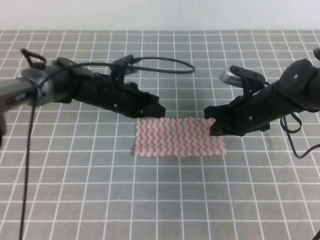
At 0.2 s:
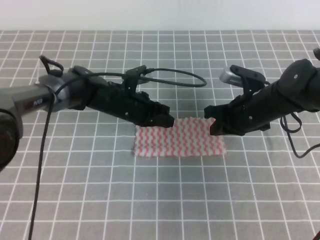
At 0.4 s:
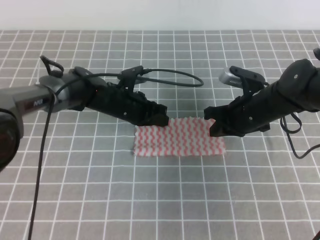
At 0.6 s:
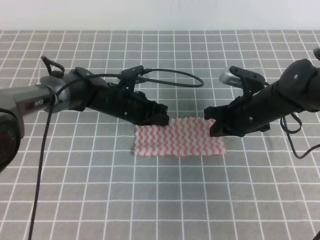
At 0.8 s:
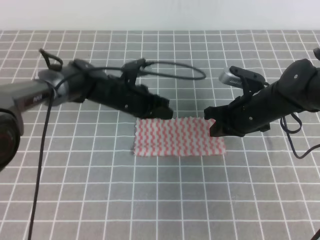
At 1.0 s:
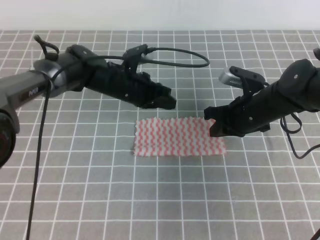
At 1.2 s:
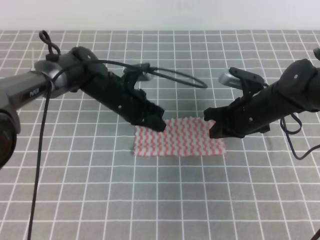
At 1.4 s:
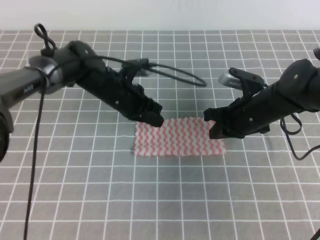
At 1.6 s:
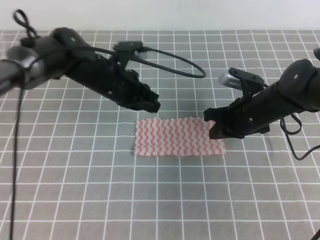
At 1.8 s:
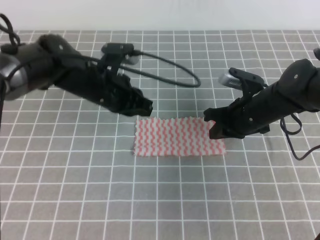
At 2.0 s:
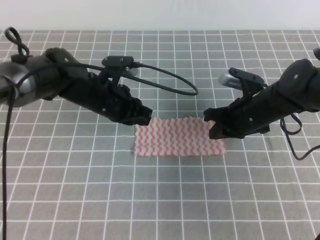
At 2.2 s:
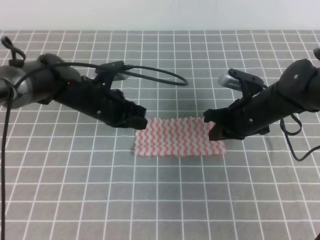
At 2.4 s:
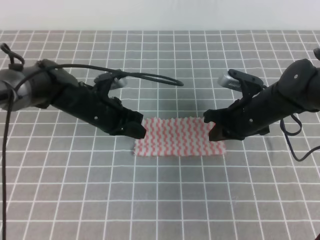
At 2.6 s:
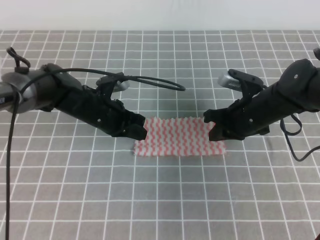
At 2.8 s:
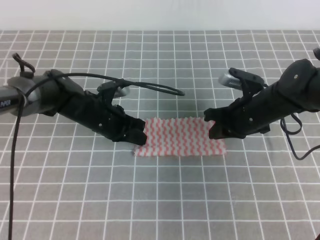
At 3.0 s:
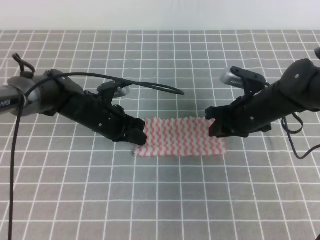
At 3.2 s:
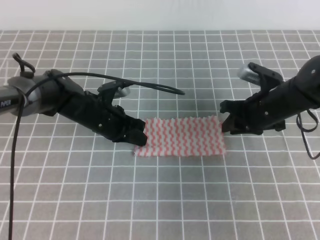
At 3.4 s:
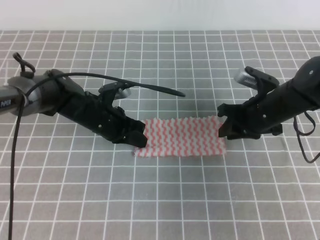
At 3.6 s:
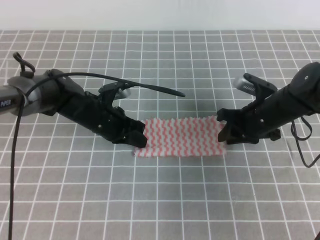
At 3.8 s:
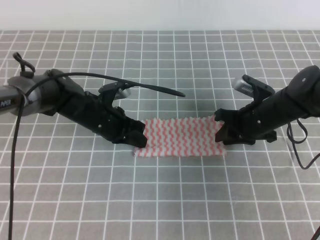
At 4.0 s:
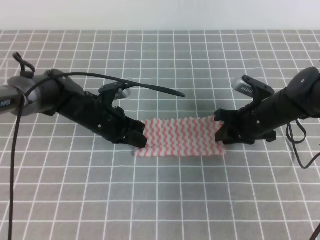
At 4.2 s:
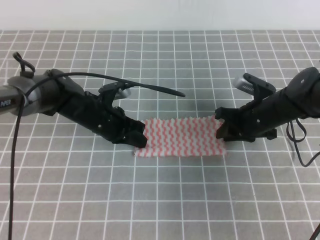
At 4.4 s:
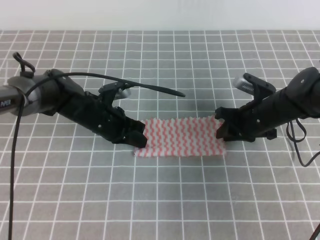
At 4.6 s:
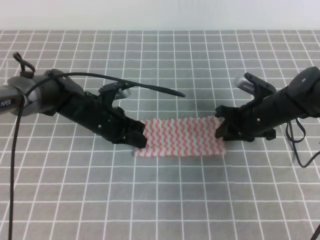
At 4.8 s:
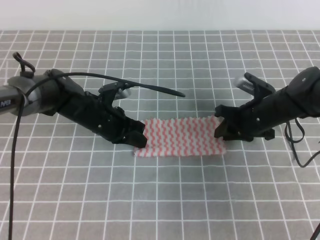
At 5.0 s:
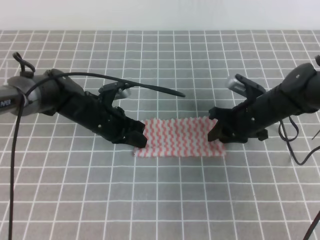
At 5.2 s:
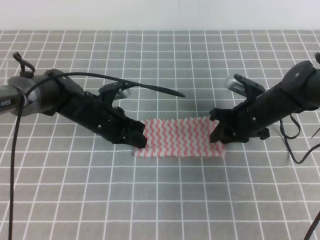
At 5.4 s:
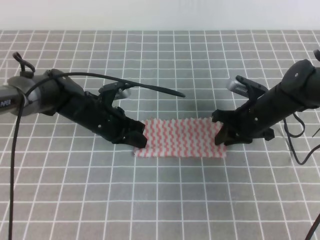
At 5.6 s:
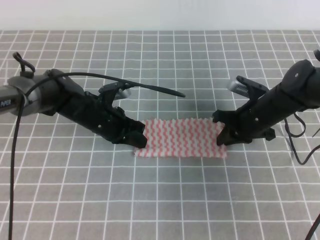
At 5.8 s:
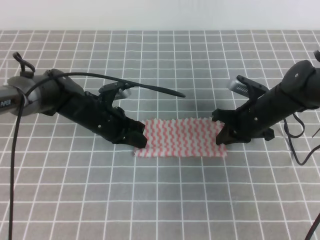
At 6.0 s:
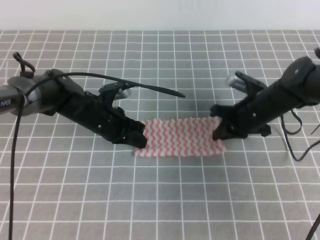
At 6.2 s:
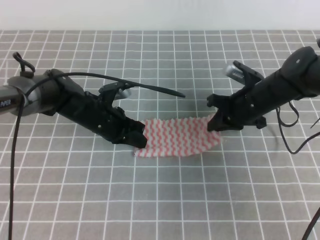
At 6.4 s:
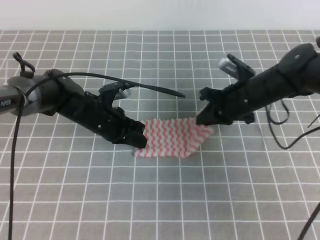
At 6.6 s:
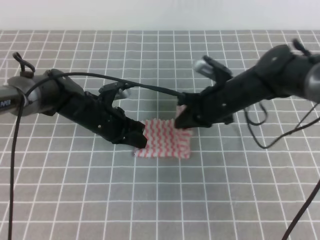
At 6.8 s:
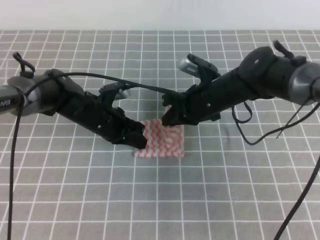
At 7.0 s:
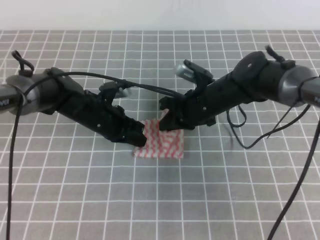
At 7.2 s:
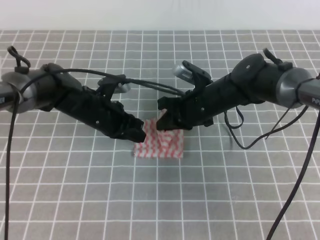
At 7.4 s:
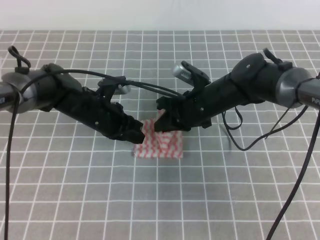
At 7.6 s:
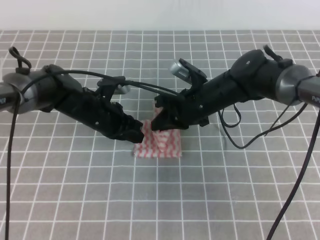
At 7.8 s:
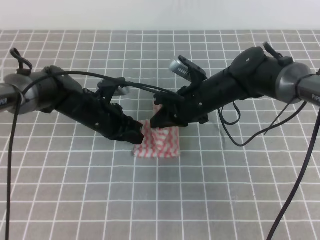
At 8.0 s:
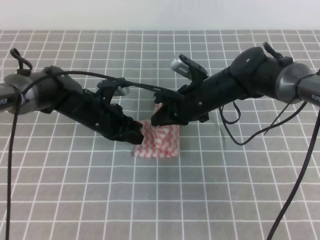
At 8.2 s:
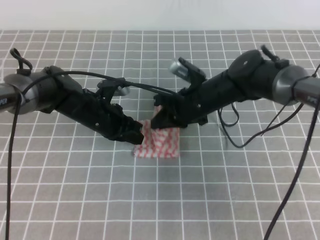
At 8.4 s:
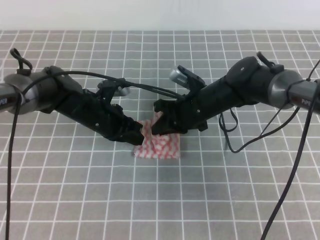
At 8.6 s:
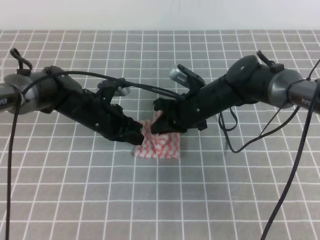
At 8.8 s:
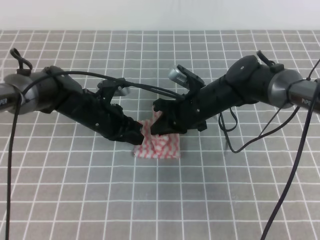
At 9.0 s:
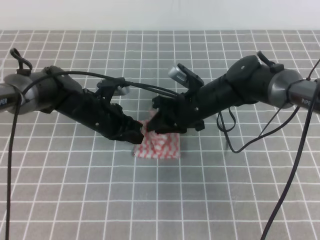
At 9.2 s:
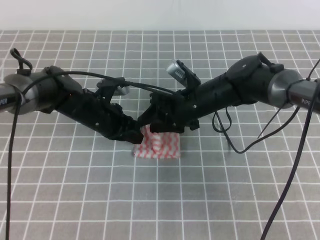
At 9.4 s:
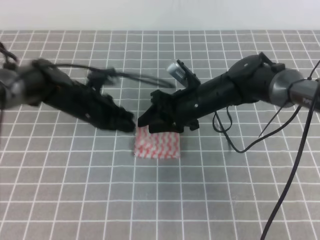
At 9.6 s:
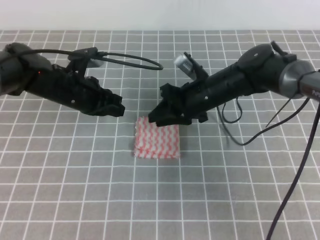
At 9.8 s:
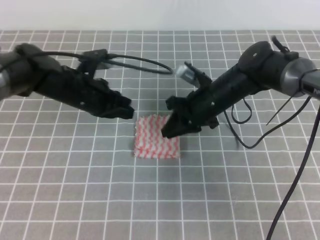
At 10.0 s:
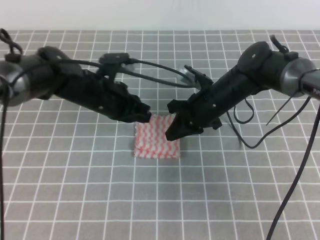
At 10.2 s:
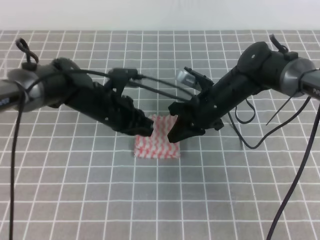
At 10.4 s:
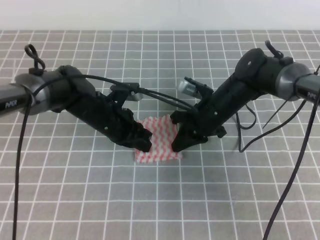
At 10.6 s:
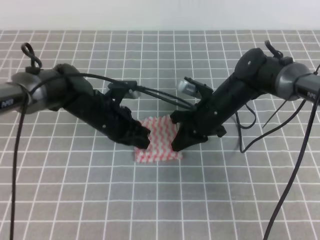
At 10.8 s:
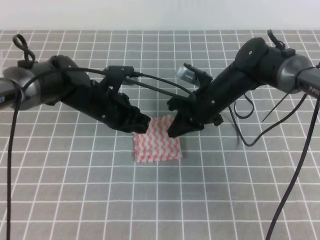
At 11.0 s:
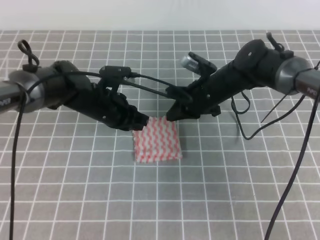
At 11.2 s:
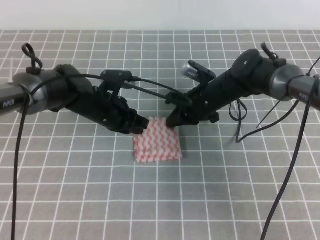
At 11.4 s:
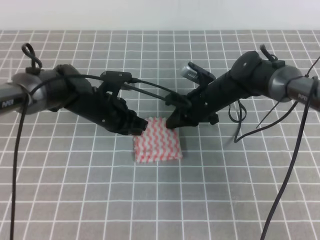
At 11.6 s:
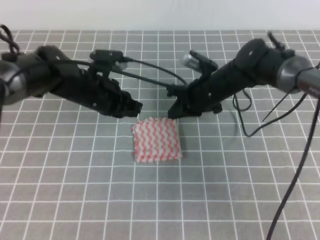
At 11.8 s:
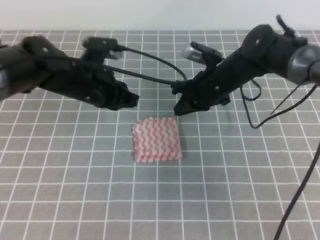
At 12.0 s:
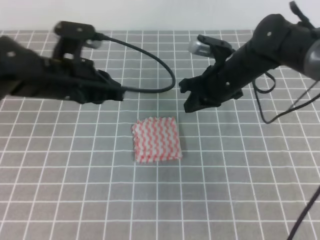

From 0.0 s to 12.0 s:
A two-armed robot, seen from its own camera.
From 0.0 s to 1.6 s: The left gripper moves some 5 cm.
From 1.6 s to 3.0 s: The left gripper goes some 5 cm downward.
From 3.0 s to 4.4 s: The grippers make only small movements.
From 4.4 s to 6.0 s: The right gripper closes up.
From 6.0 s to 7.6 s: The right gripper moves to the left, roughly 10 cm.
From 7.6 s to 9.0 s: The right gripper opens.
From 9.0 s to 10.4 s: The right gripper closes its fingers.
From 10.4 s to 12.0 s: The left gripper is displaced upward by some 10 cm, while the right gripper travels upward by roughly 5 cm.

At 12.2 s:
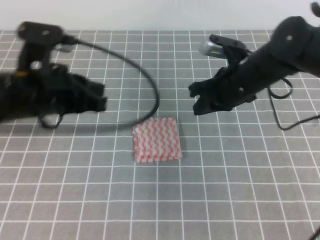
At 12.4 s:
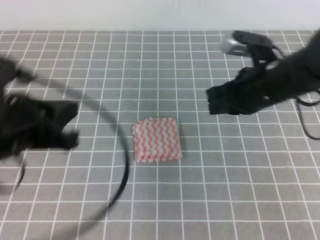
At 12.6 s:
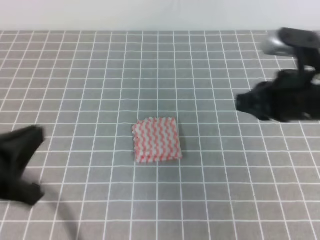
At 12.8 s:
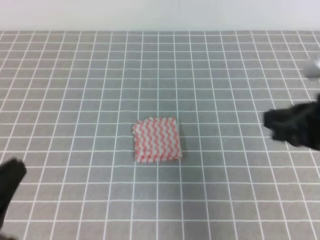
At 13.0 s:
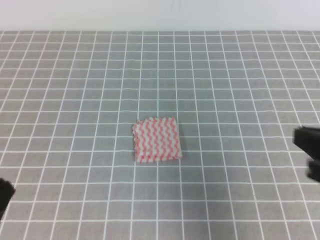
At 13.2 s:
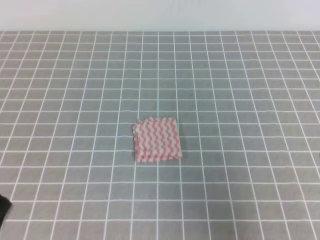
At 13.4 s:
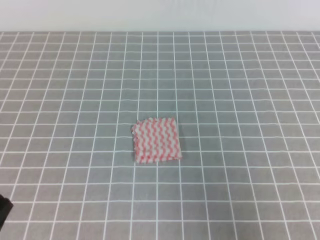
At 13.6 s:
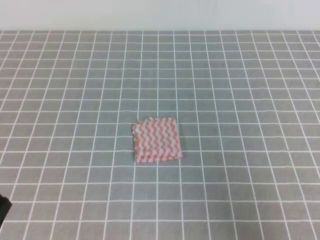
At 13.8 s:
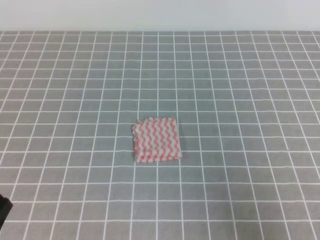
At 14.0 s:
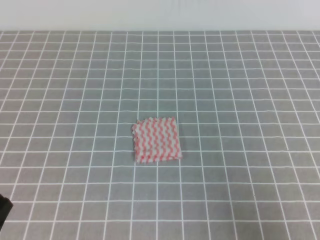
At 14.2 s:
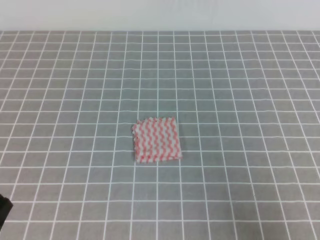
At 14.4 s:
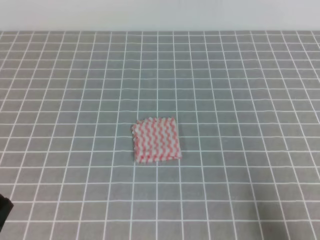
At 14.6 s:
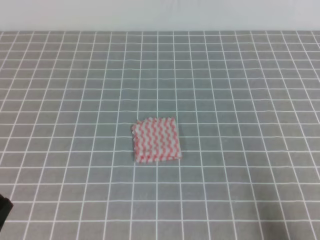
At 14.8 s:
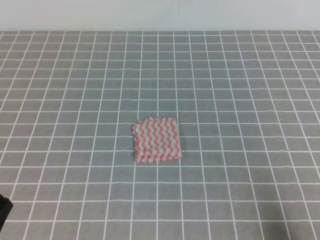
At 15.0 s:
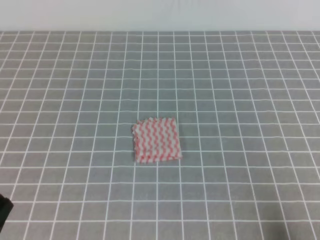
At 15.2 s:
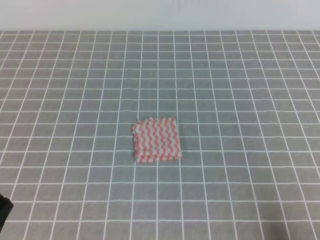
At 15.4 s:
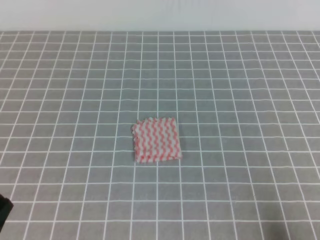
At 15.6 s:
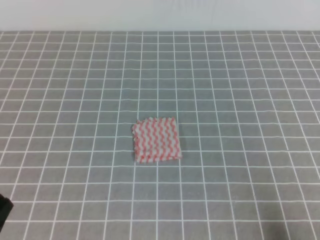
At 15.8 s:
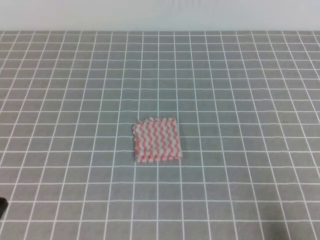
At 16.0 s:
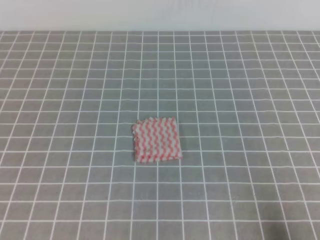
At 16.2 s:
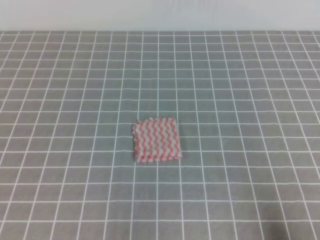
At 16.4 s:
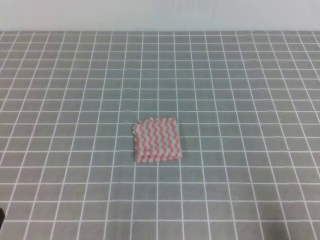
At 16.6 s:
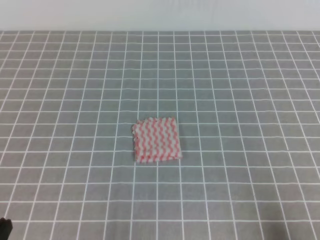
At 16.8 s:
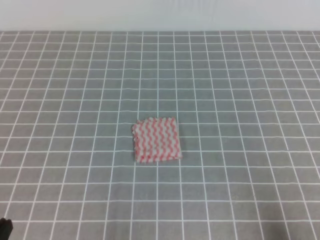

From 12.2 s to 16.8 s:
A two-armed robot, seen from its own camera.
Step, from 12.2 s to 16.8 s: Fold the towel.
From 12.2 s to 13.8 s: The left gripper shifts roughly 25 cm backward. Meanwhile the right gripper travels backward and to the right by approximately 30 cm.
From 13.8 s to 15.2 s: The right gripper is displaced downward by some 5 cm.
From 15.2 s to 16.8 s: The left gripper is displaced downward by about 5 cm.
